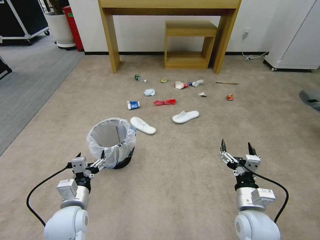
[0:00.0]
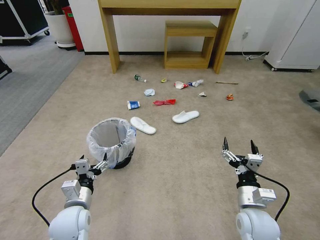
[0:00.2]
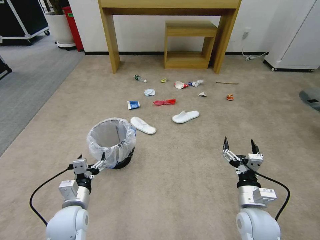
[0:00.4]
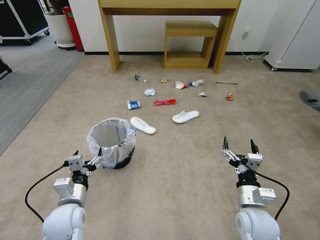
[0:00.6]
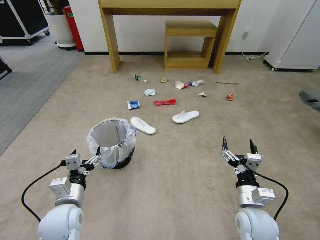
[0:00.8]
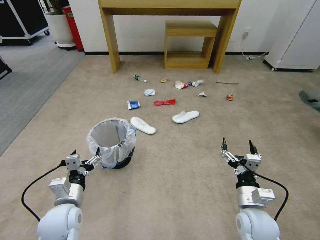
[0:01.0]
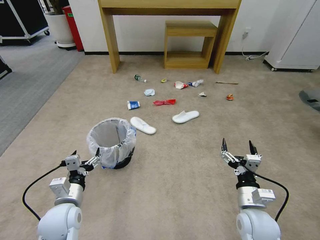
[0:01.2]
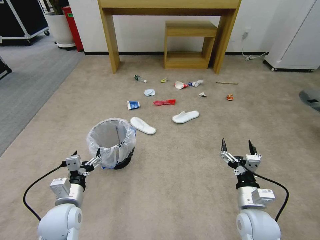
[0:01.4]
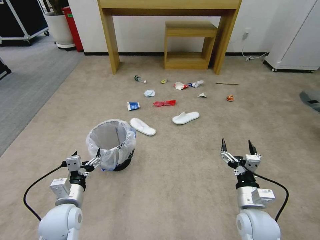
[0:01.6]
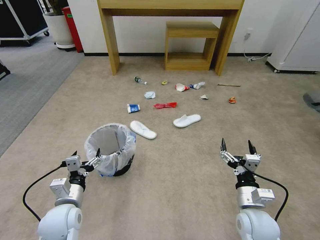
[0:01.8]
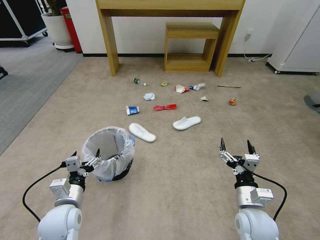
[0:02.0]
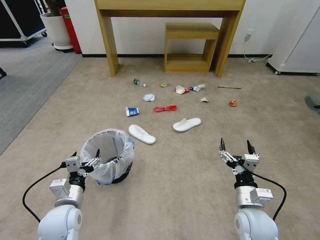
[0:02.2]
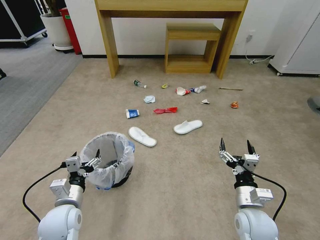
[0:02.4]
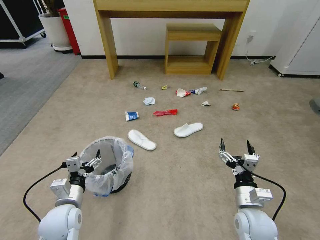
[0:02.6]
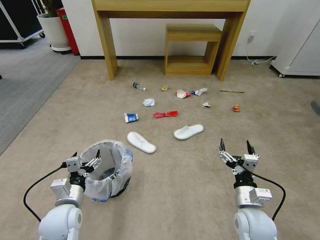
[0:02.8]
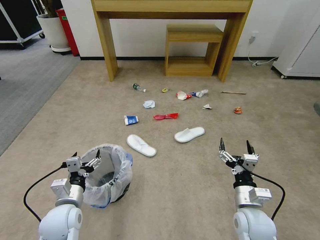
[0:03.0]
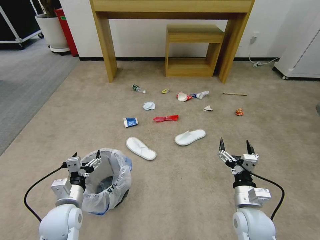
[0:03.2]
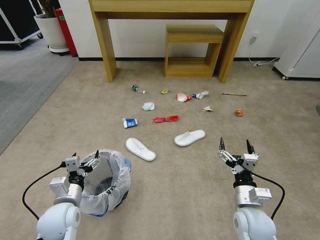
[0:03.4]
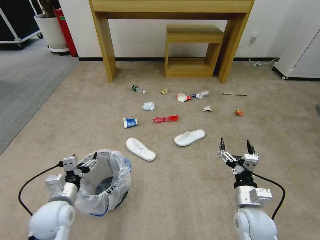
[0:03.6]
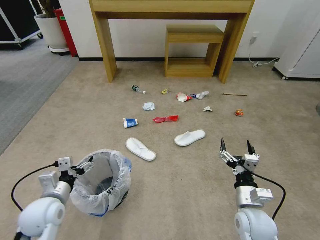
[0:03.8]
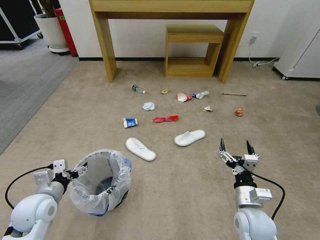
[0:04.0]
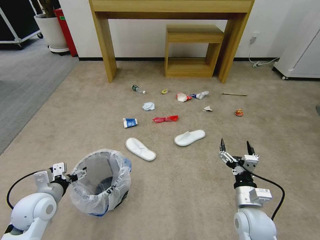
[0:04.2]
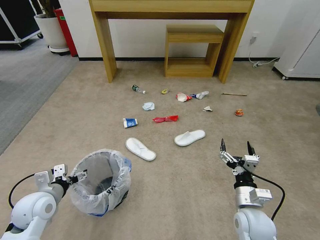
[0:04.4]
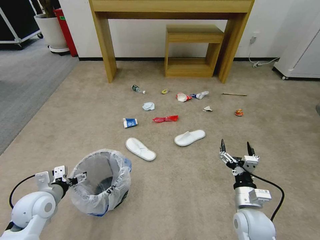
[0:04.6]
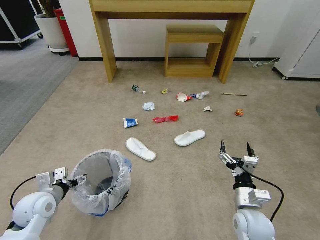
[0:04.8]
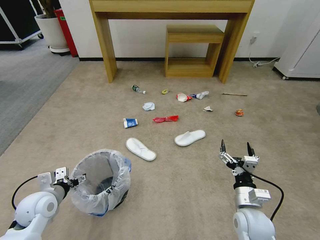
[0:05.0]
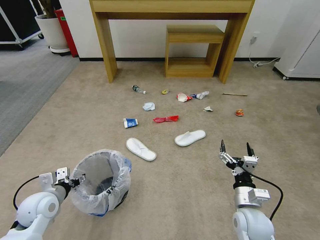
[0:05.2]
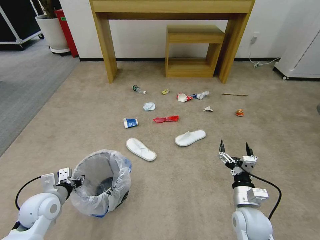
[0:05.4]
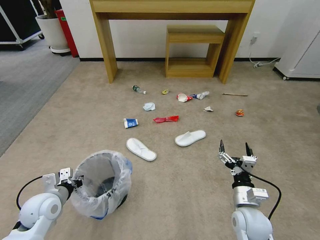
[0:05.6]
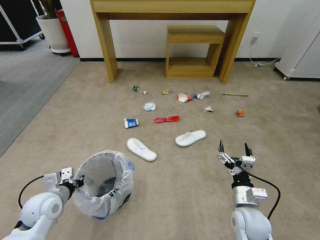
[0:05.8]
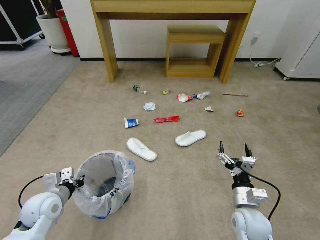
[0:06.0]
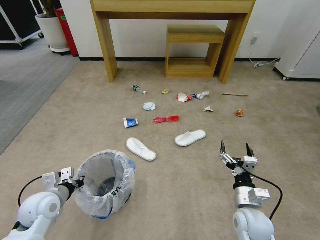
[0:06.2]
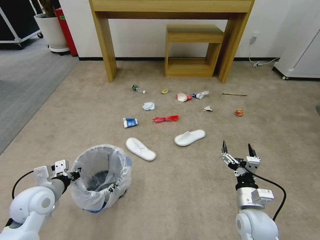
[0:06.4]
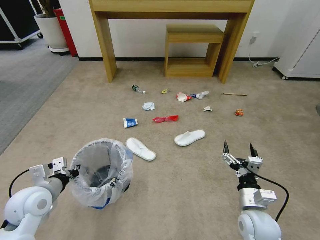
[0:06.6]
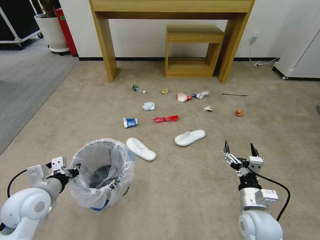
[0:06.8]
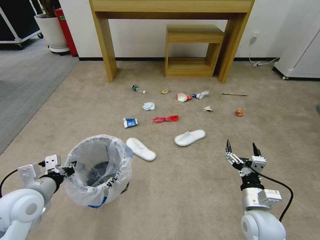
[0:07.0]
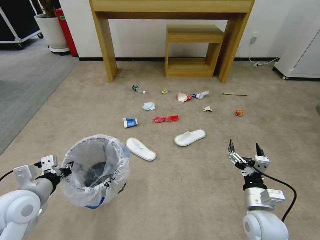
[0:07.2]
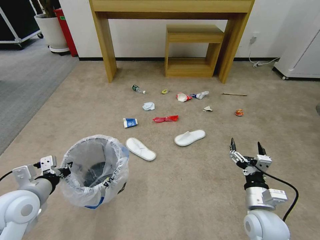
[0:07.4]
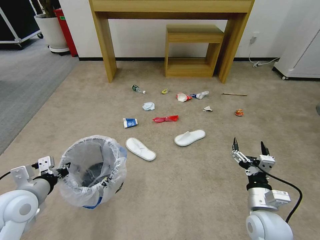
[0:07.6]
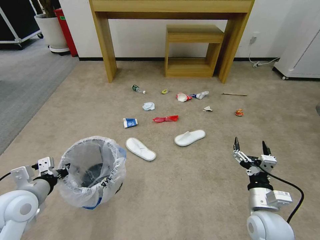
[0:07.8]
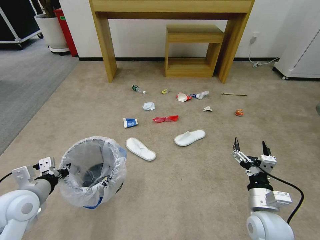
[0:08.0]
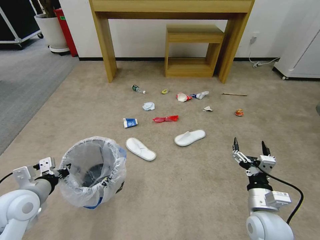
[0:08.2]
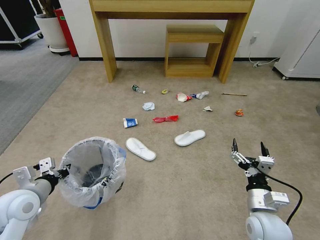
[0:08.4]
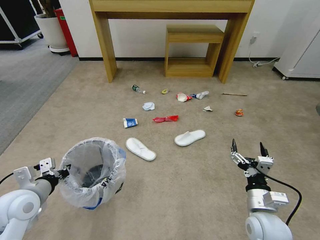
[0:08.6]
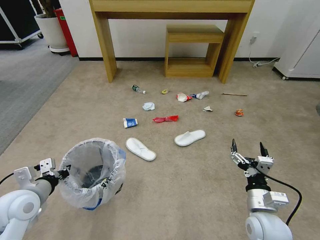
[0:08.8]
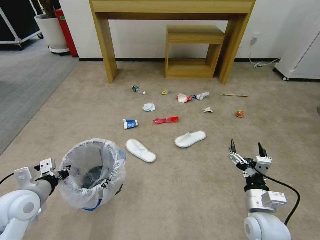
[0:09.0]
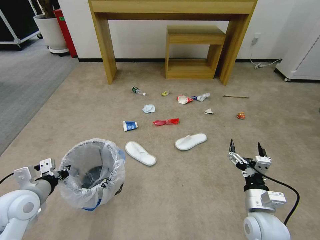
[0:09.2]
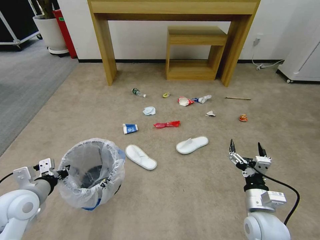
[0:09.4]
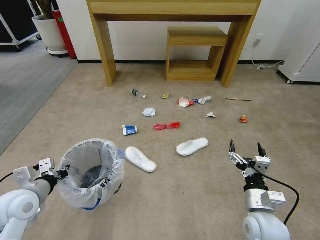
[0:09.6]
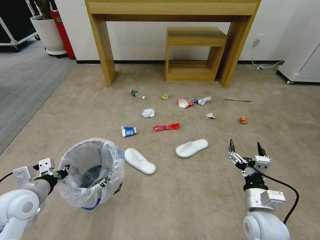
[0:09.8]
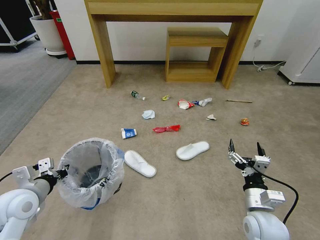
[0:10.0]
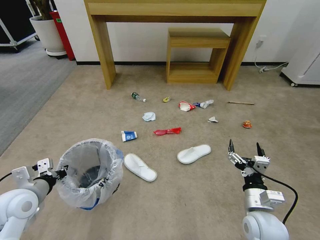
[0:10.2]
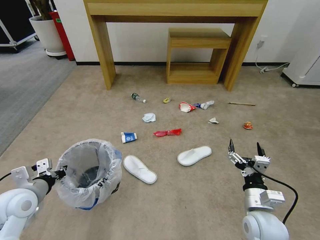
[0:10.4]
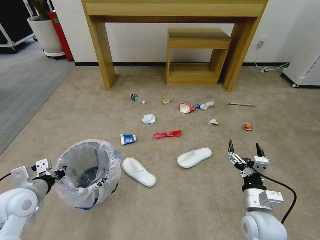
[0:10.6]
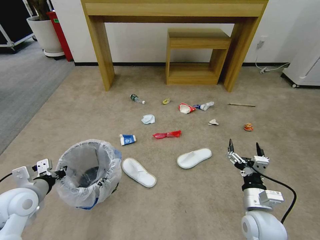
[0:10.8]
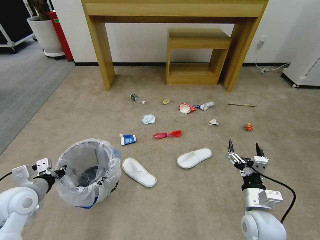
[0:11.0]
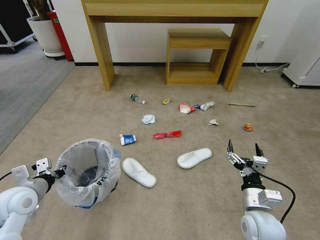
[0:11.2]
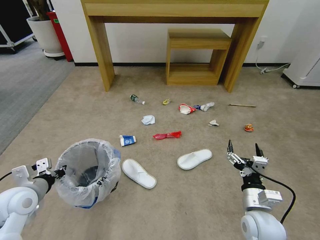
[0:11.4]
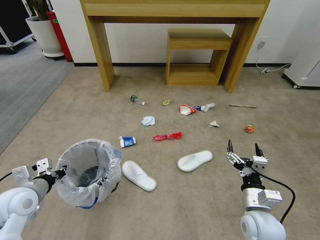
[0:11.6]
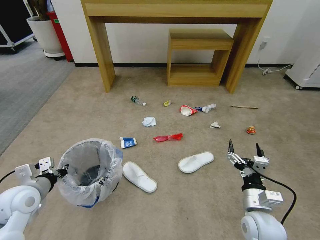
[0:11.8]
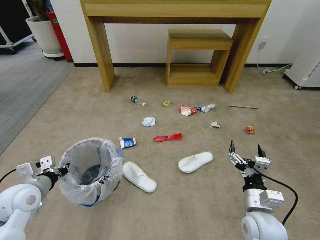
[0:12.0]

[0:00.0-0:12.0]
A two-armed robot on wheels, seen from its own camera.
Task of the whole recording: Pick up the trash bin and place the garbage on the floor into it.
0:03.0 to 0:04.4: The left gripper shifts about 10 cm to the left.
0:04.4 to 0:06.0: The left gripper closes up.
0:06.0 to 0:07.6: The left gripper is displaced upward by about 10 cm.
0:07.6 to 0:09.0: The grippers move only a little.
0:10.4 to 0:12.0: The grippers make only small movements.

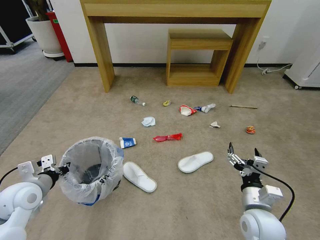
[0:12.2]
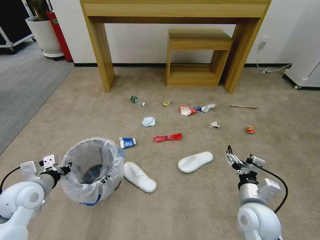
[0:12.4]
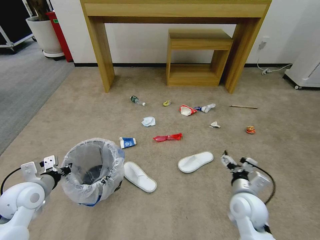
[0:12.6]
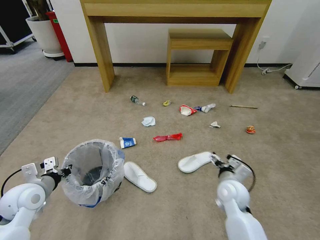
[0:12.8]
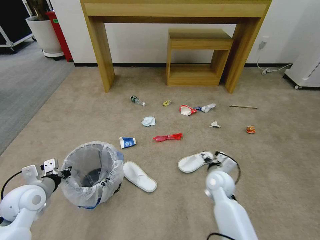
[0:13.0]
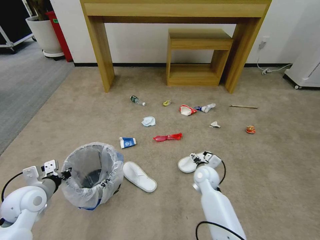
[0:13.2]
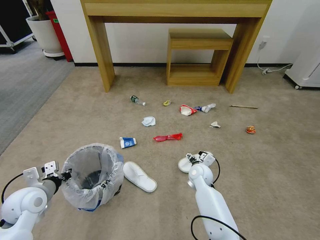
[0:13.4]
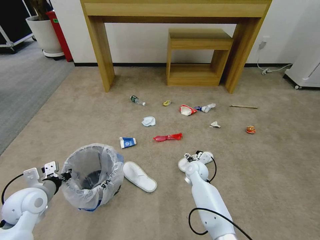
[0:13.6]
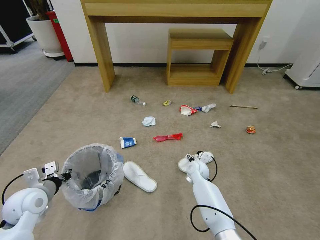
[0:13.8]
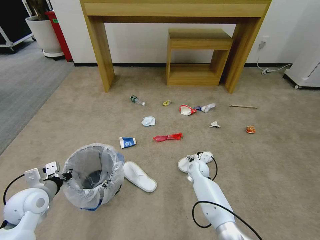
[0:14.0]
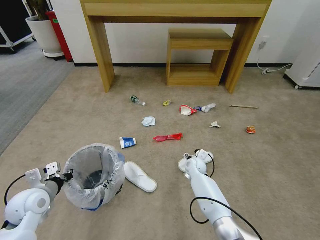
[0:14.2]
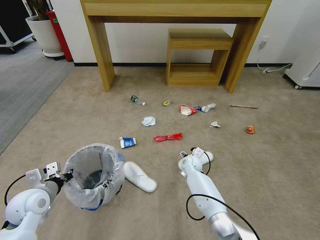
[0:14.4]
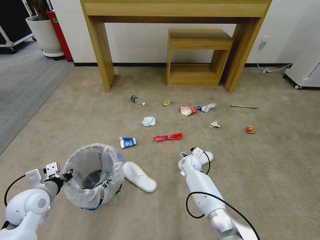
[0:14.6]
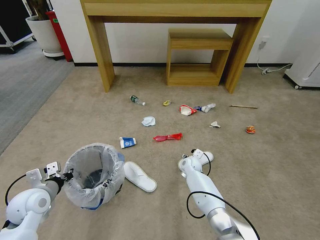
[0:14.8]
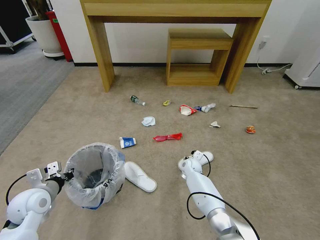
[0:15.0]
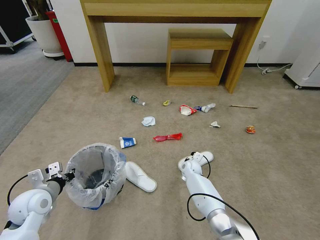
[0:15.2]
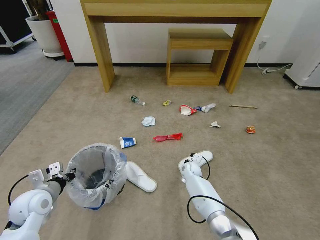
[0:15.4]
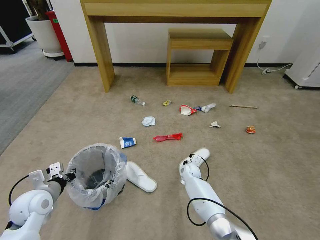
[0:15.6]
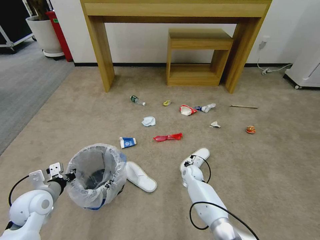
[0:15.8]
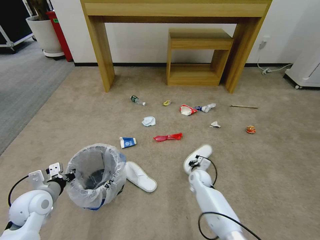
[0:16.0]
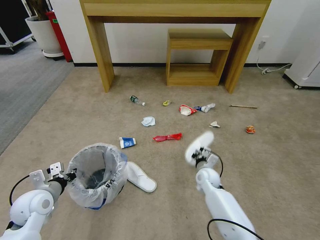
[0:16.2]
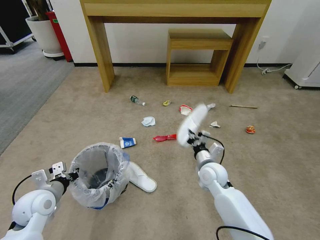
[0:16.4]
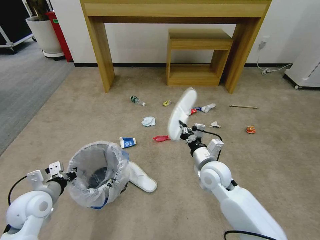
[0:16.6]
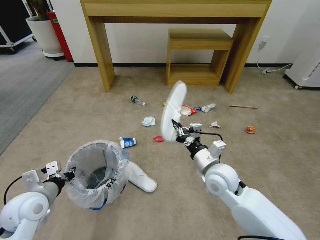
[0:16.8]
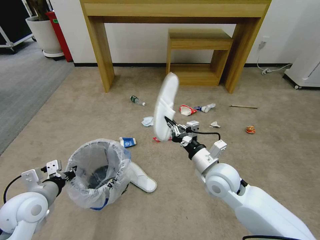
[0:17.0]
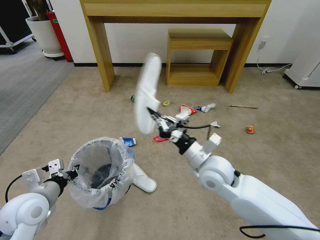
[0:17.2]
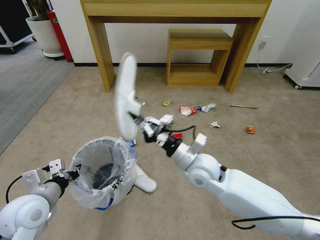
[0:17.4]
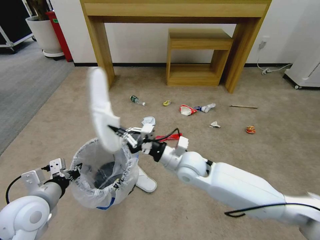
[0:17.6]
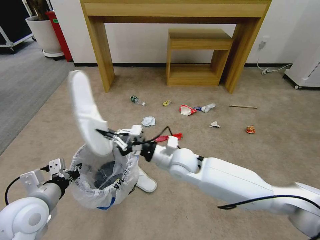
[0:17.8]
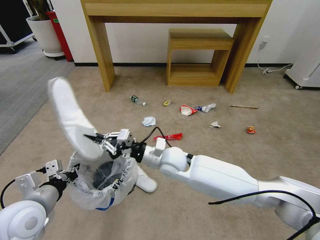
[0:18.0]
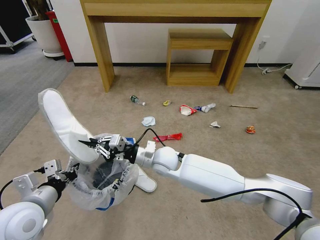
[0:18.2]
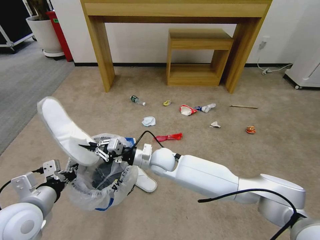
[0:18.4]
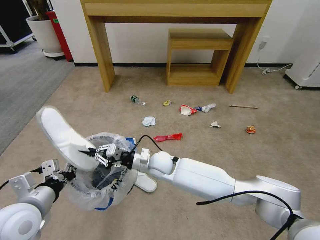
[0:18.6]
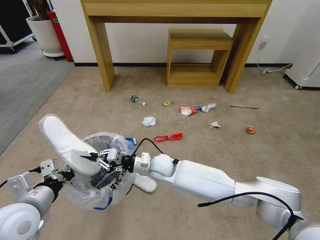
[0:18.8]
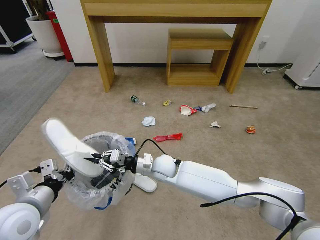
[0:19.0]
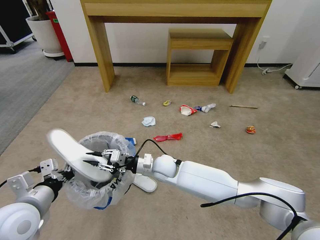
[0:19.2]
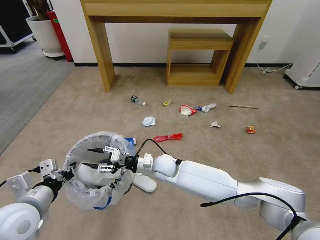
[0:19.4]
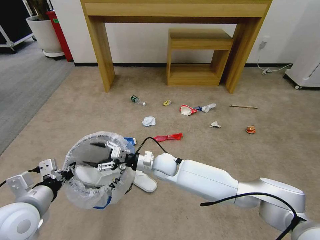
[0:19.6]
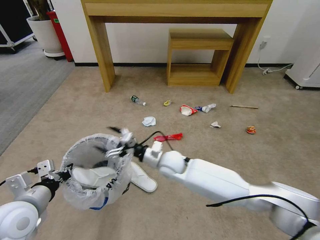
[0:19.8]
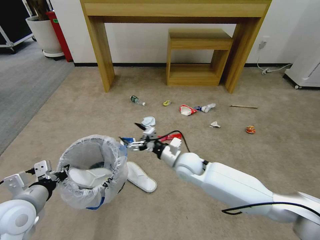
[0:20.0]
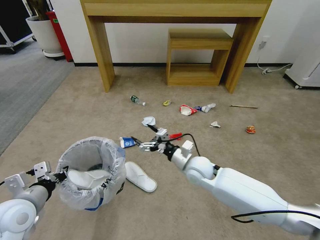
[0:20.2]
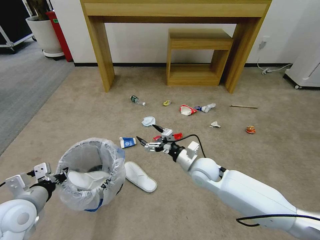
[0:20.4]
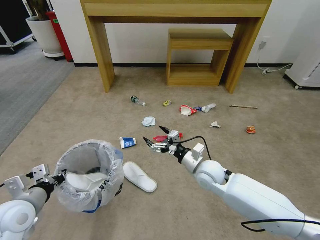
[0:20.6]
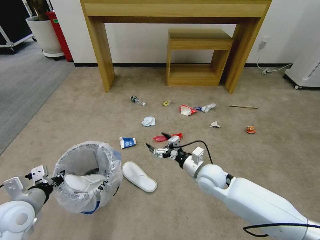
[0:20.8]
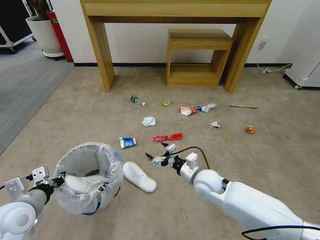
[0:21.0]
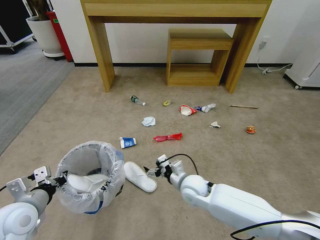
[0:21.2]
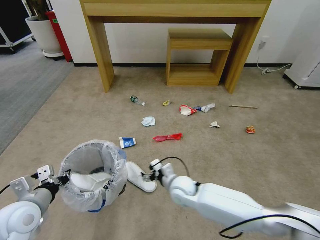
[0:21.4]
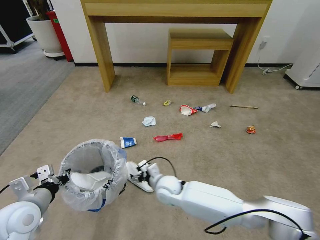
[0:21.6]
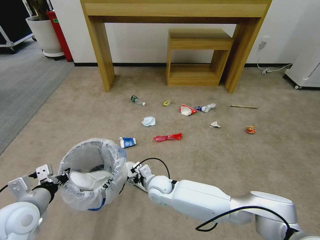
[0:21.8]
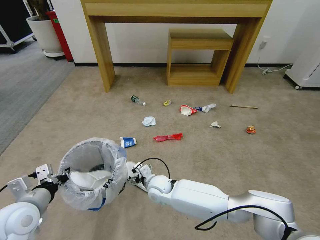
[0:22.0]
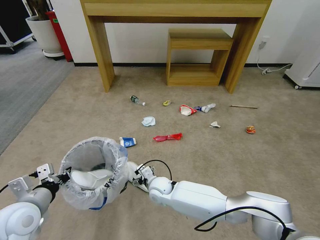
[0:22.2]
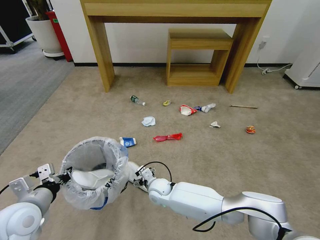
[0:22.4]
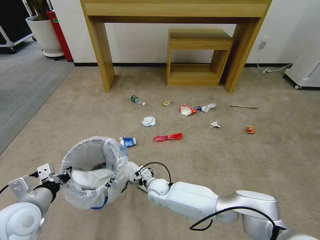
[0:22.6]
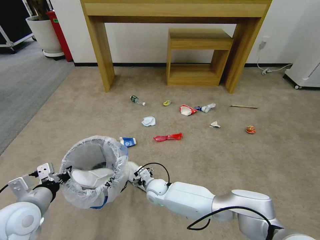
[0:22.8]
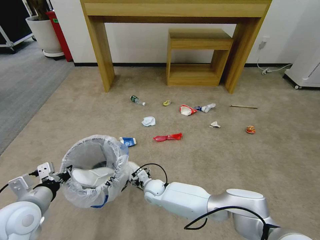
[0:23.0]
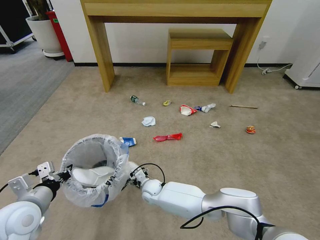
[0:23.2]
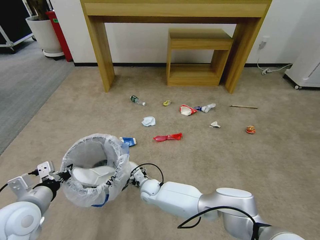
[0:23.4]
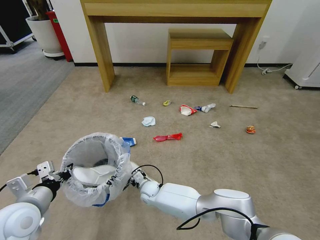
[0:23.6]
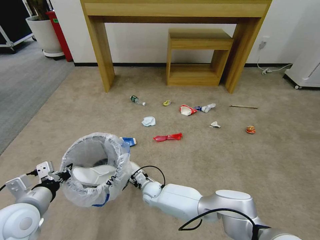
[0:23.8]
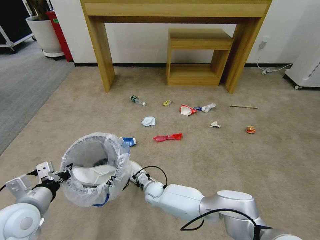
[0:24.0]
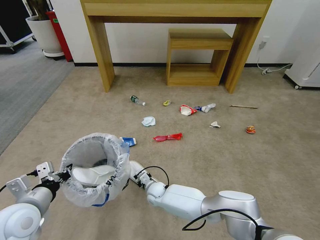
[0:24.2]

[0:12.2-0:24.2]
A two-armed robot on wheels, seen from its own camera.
Task of the whole recording: Pick up the trash bin and place the garbage on the floor into it.
0:12.2 to 0:13.8: The right gripper travels forward, downward and to the left by approximately 30 cm.
0:13.8 to 0:15.2: The right gripper is displaced downward by some 5 cm, and closes up.
0:15.2 to 0:16.6: The right gripper goes approximately 25 cm upward and backward, and closes.
0:16.6 to 0:18.2: The left gripper shifts some 10 cm upward and backward. Meanwhile the right gripper moves to the left, roughly 15 cm.
0:18.2 to 0:19.8: The right gripper opens.
0:19.8 to 0:21.2: The right gripper heads to the right, backward and downward, covering some 10 cm.
0:21.2 to 0:22.6: The right gripper travels to the left and downward by some 15 cm.
0:22.6 to 0:24.2: The right gripper heads downward, covering roughly 5 cm, and closes its fingers.
